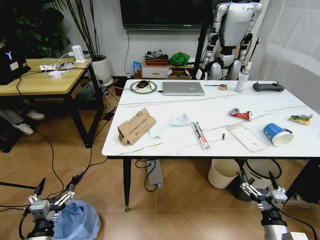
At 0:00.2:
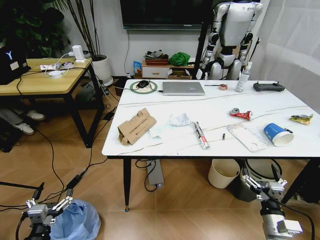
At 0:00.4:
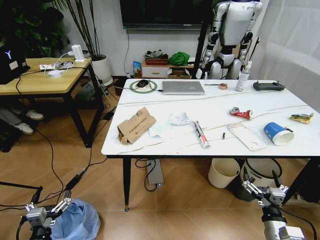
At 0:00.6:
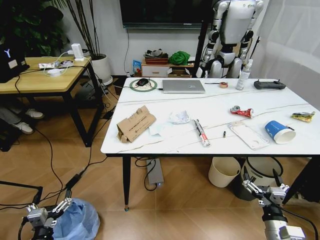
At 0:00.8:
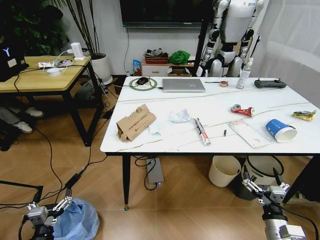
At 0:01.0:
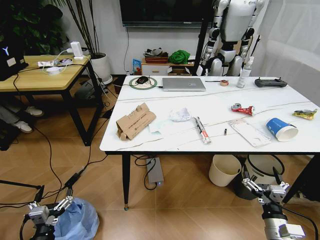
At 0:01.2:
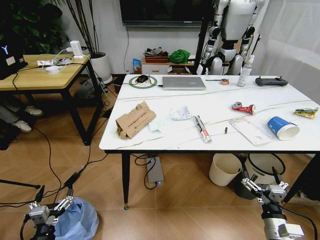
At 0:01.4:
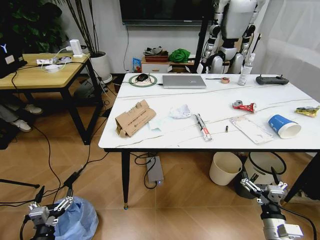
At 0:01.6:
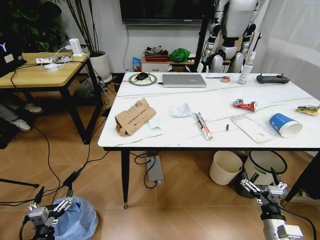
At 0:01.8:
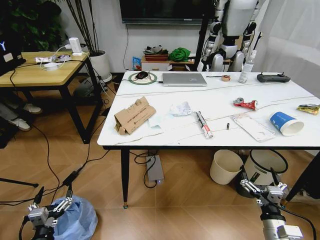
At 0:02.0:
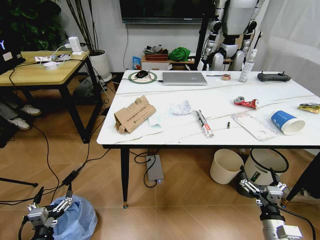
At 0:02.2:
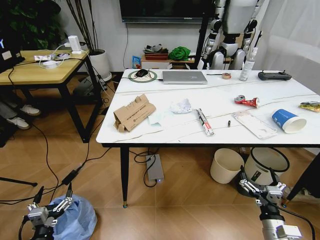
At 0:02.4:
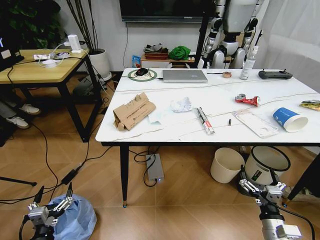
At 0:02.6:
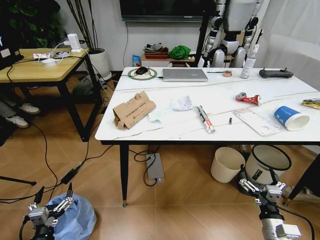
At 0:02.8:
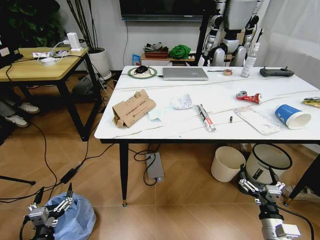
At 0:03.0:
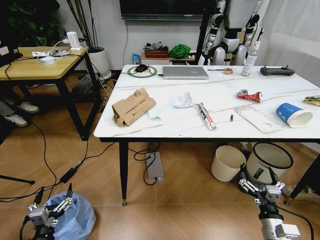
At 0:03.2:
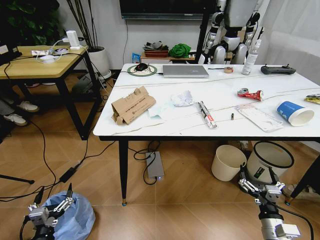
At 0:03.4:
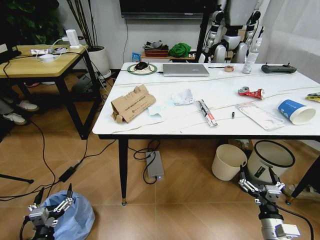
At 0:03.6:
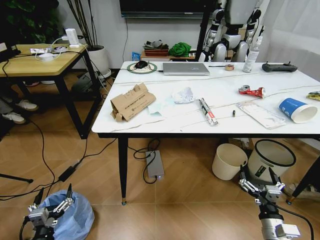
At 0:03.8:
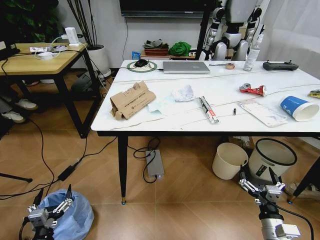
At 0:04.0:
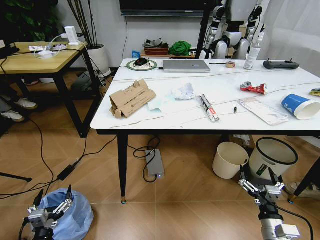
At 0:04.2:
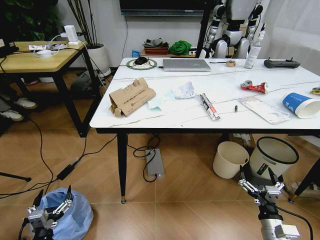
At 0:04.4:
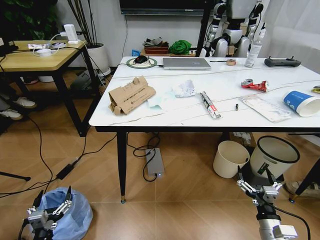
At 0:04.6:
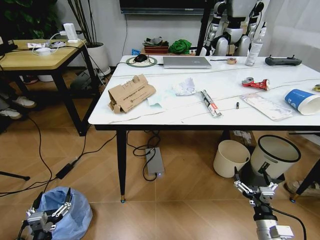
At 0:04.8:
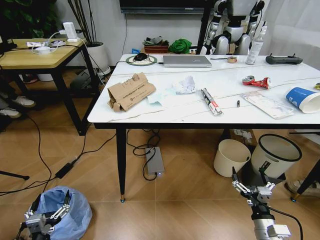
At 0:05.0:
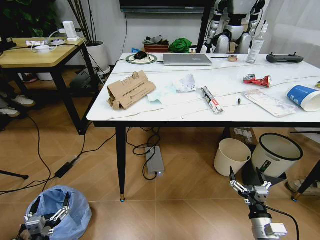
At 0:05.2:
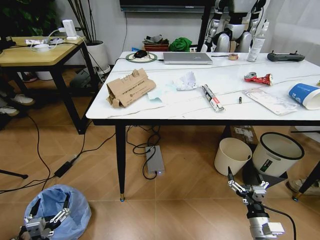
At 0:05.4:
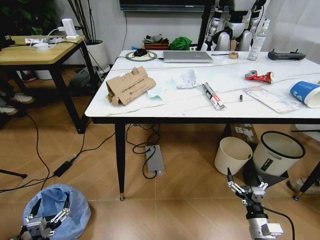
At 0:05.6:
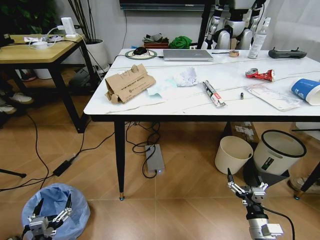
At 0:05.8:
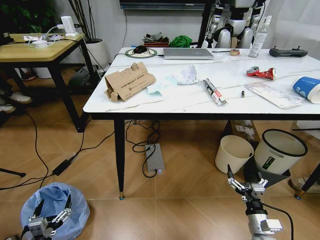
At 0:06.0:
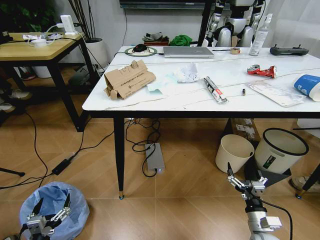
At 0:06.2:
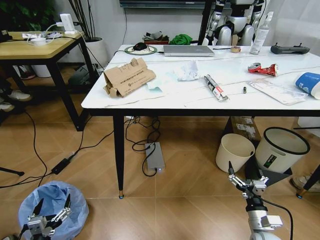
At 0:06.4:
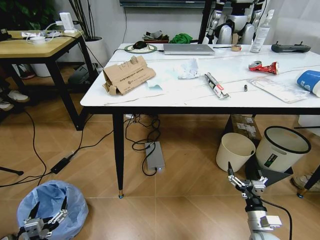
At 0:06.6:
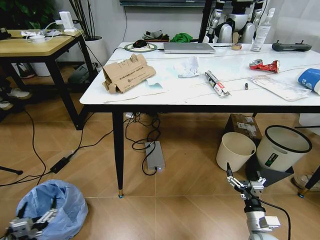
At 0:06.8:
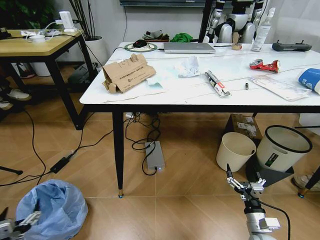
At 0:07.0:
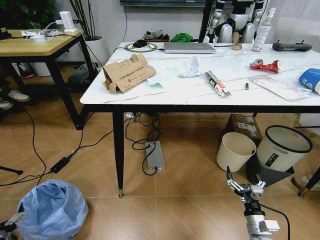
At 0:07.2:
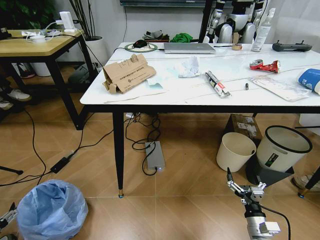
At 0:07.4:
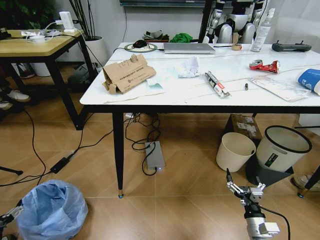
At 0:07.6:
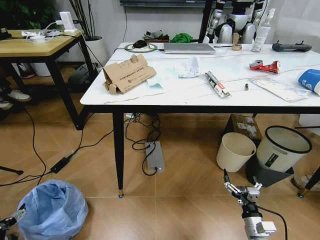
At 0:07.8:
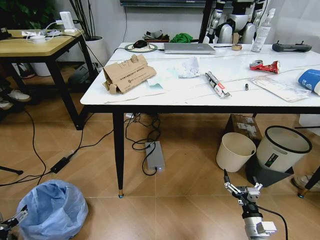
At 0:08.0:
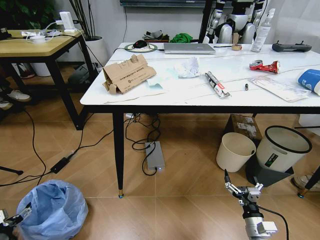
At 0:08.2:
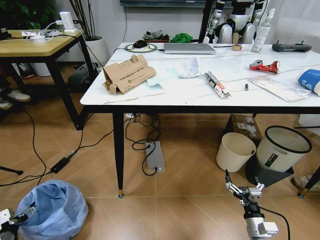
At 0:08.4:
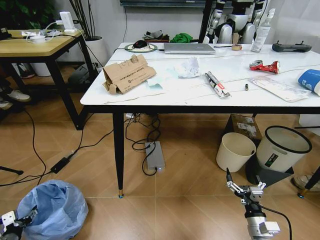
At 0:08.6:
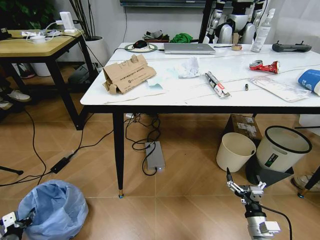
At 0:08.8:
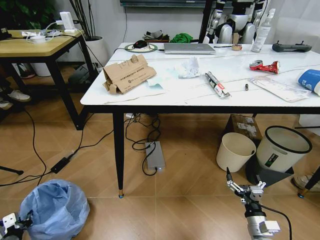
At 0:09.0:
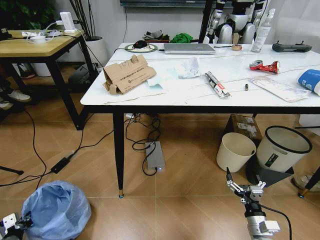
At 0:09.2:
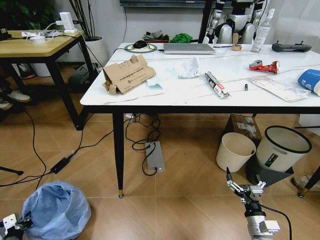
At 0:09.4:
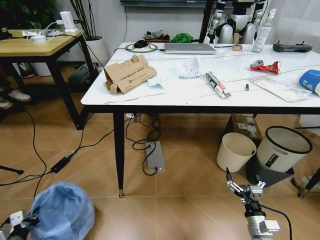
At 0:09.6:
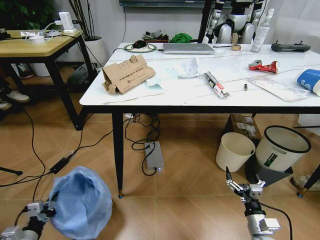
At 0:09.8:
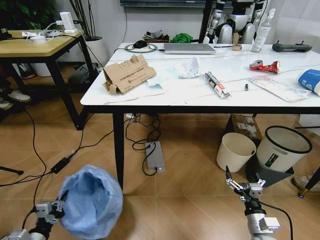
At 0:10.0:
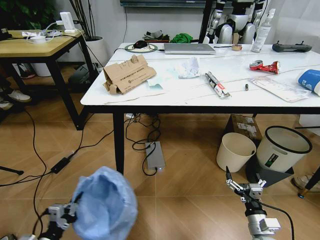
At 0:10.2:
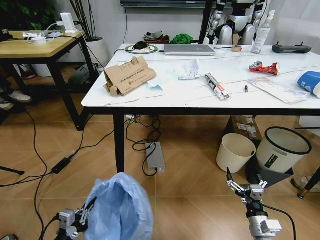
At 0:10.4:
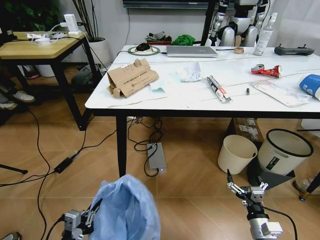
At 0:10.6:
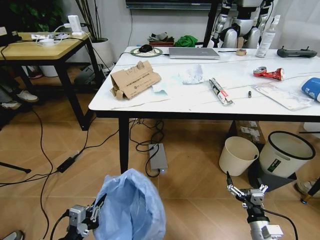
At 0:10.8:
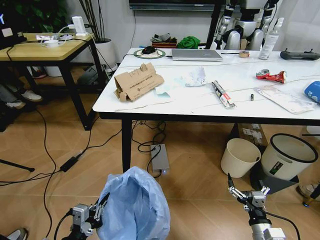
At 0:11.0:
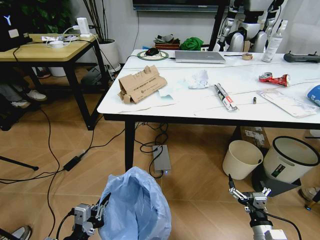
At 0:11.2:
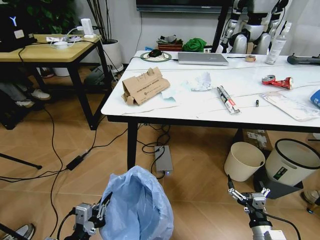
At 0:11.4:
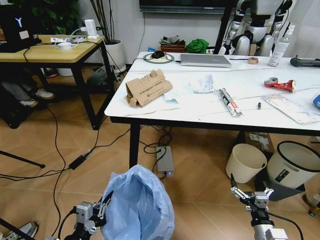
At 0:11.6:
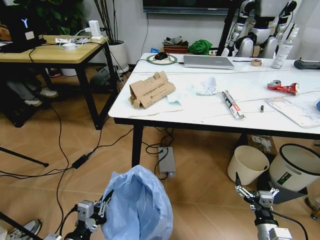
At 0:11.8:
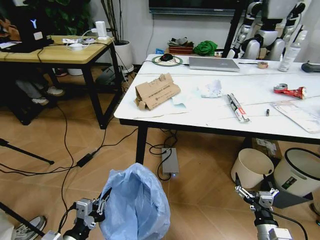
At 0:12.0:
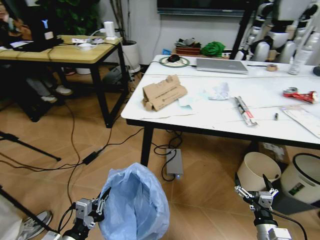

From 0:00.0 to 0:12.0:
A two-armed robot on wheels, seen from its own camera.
Task of the whole recording: Pick up the trash bin and place the trash from the table into it.
From 0:06.0 to 0:07.6: The left gripper travels to the left by approximately 15 cm.
From 0:07.6 to 0:09.0: The left gripper moves downward, approximately 5 cm, and closes up.
From 0:09.0 to 0:10.4: The left gripper shifts roughly 25 cm to the right and upward.

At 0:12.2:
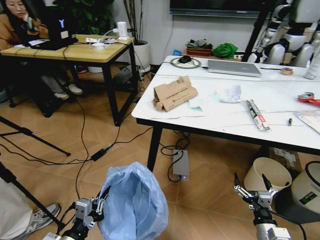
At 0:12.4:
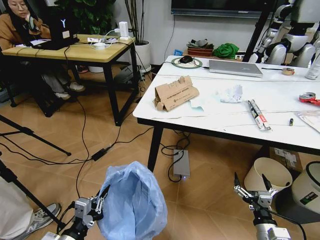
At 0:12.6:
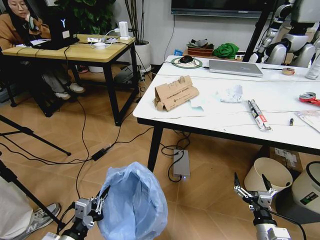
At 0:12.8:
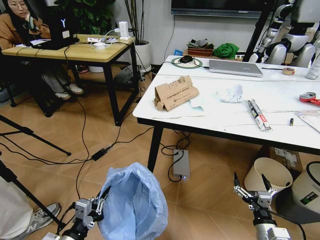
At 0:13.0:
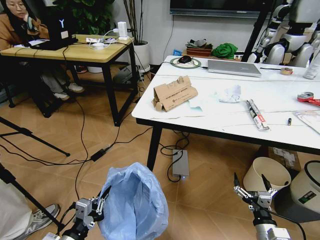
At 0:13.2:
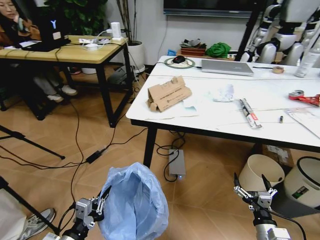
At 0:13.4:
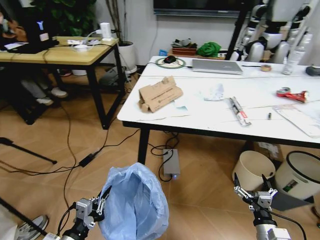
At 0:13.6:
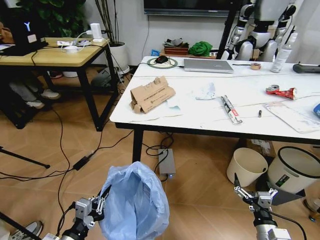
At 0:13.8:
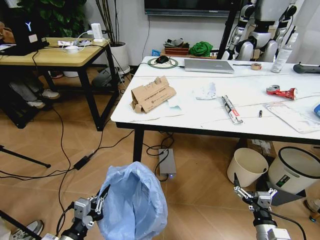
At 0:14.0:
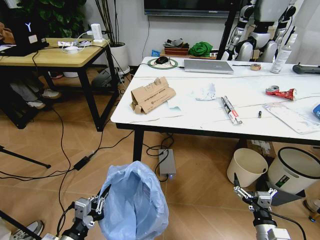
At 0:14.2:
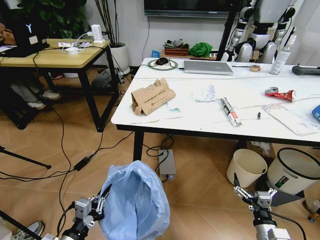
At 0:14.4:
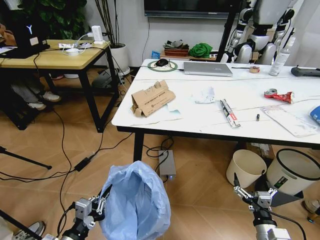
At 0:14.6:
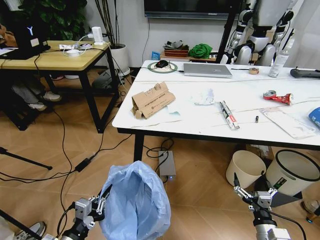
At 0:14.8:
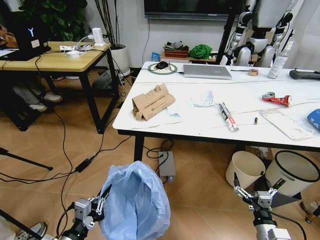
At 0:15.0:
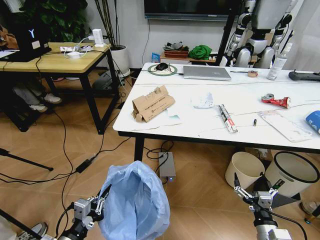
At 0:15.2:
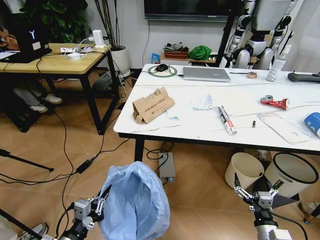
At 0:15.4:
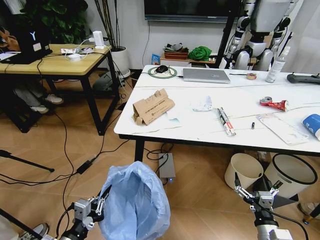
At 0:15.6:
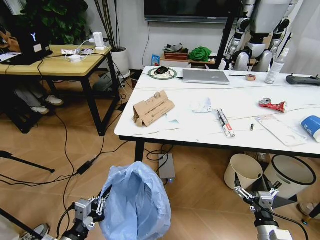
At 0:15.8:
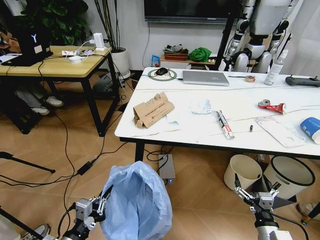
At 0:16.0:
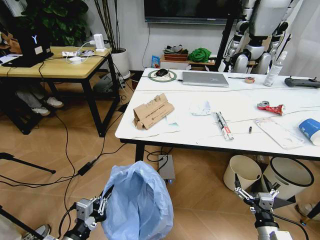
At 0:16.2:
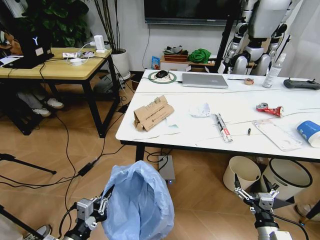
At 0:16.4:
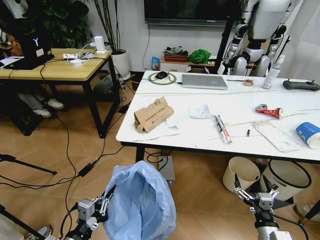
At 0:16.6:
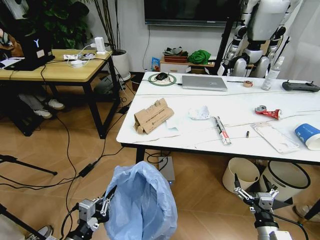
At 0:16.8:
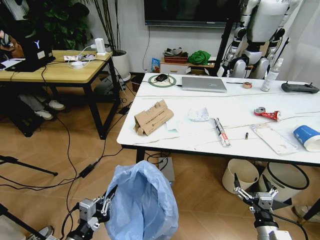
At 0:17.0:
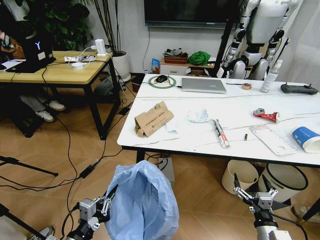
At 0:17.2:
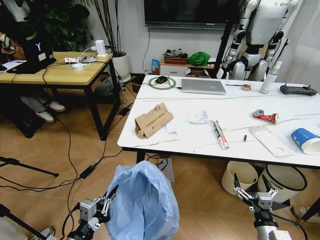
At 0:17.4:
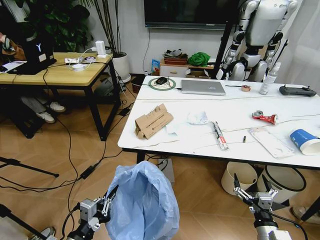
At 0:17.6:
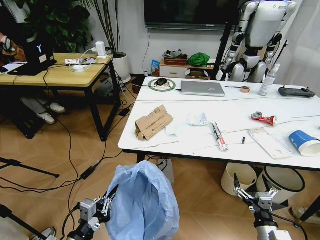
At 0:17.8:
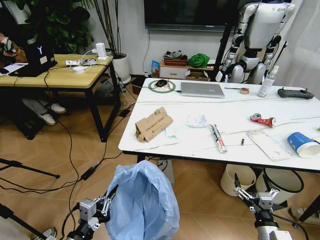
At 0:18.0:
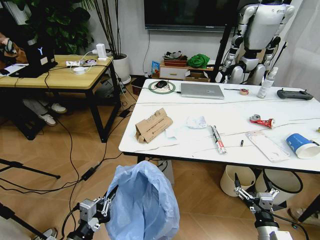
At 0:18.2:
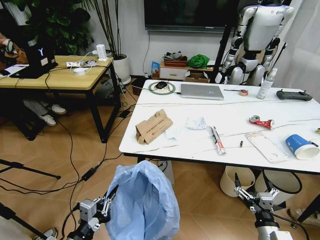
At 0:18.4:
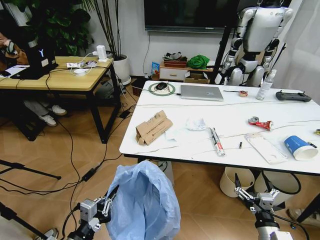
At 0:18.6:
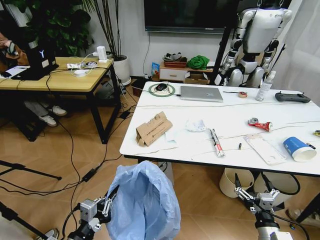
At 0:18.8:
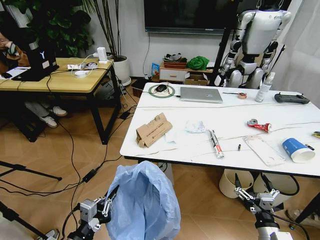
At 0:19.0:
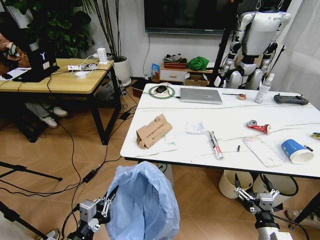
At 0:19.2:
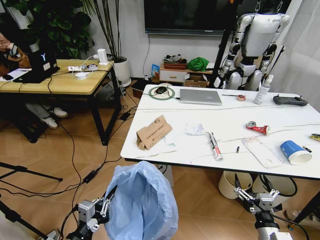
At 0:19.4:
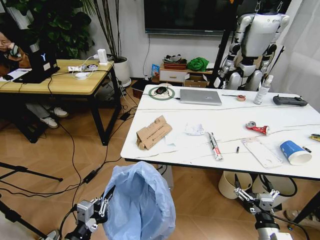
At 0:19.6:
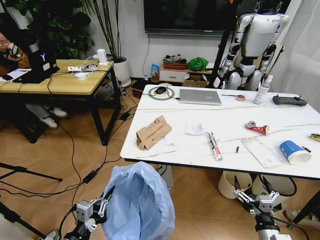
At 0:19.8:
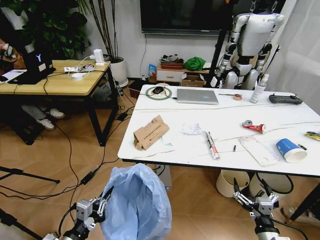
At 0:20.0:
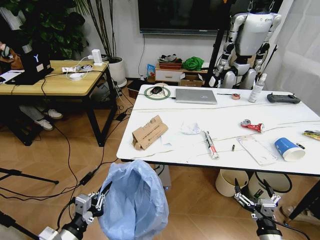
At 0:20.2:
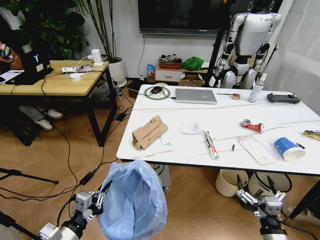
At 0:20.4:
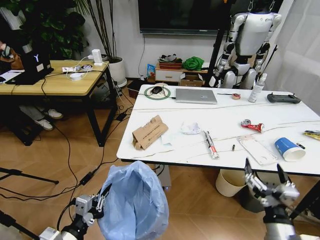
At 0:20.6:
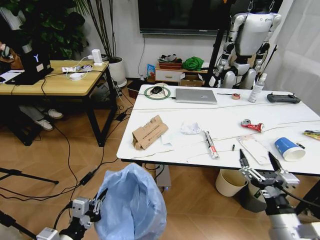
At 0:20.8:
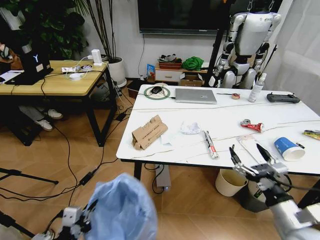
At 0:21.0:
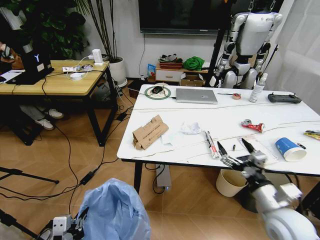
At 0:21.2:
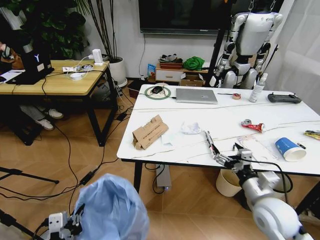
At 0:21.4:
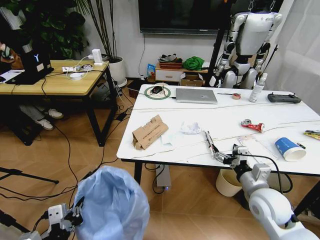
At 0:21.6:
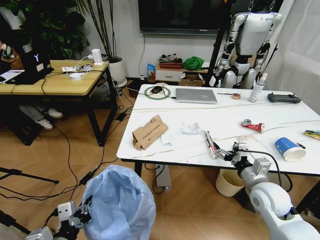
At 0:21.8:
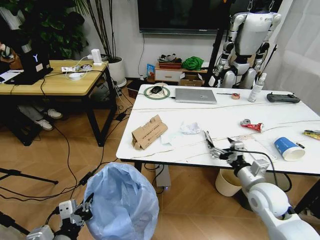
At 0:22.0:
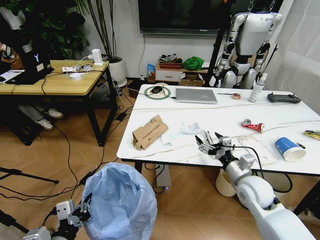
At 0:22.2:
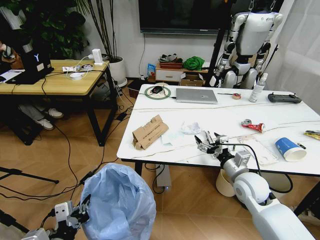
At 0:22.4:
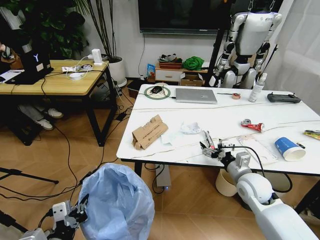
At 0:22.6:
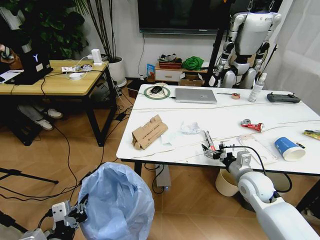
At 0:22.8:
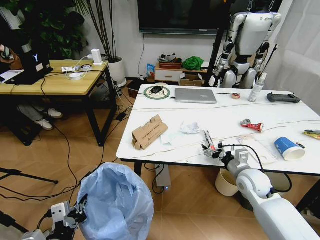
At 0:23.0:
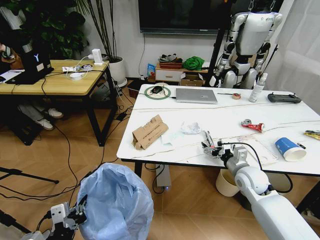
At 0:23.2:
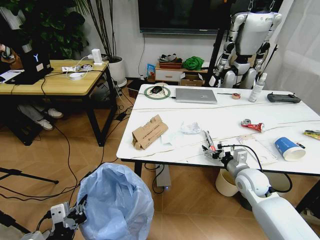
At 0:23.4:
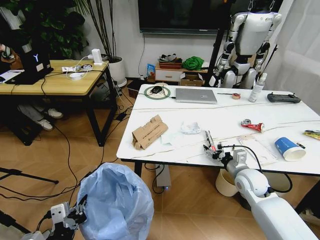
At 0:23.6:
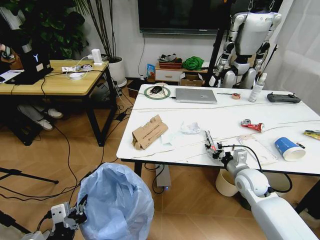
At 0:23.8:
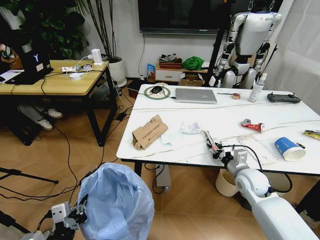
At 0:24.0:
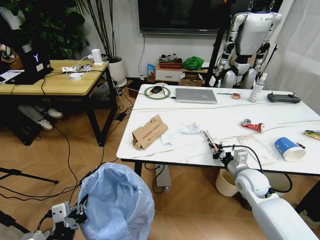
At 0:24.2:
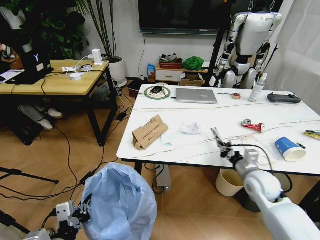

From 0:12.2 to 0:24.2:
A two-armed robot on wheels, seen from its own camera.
Task of the whole recording: Pick up the trash bin and place the trash from the table into it.
From 0:19.8 to 0:21.2: The left gripper heads upward, covering roughly 5 cm, while the right gripper travels forward and upward by roughly 20 cm.
From 0:21.2 to 0:22.6: The right gripper heads forward, covering some 10 cm.
From 0:22.6 to 0:24.2: The right gripper closes its fingers.
